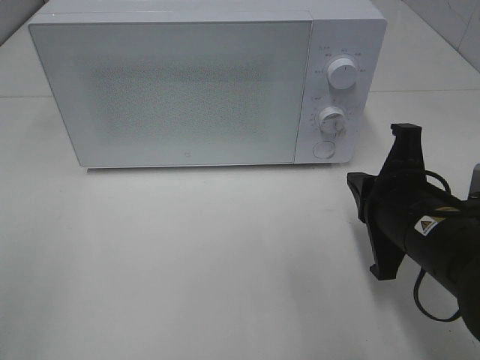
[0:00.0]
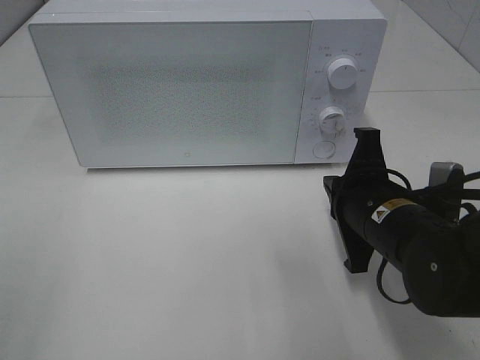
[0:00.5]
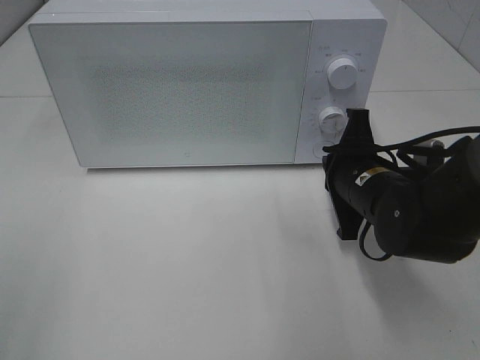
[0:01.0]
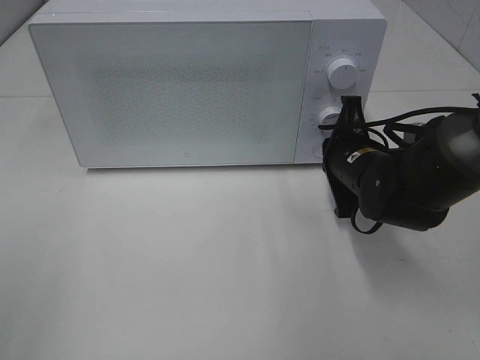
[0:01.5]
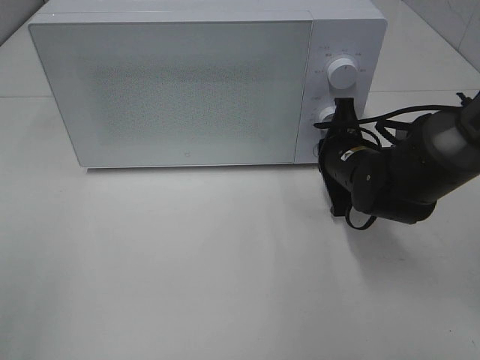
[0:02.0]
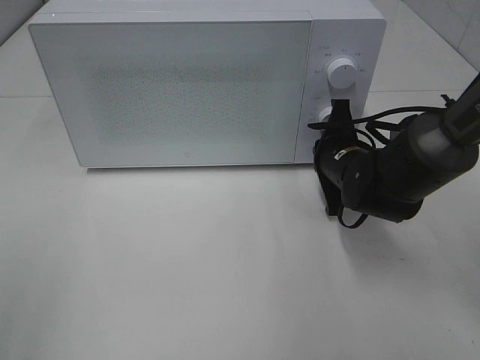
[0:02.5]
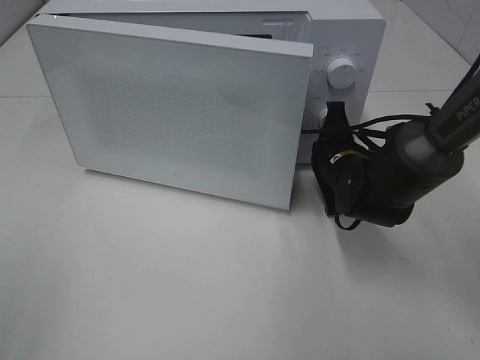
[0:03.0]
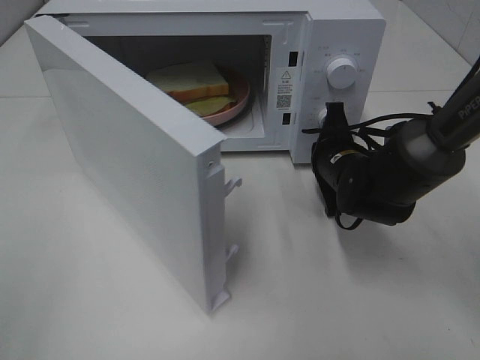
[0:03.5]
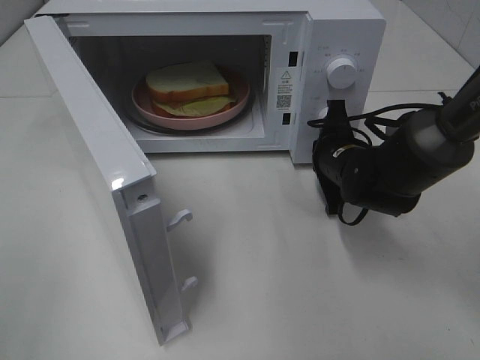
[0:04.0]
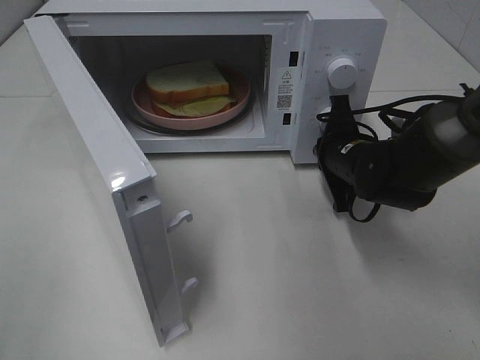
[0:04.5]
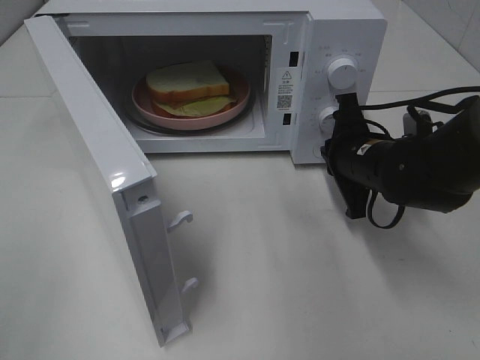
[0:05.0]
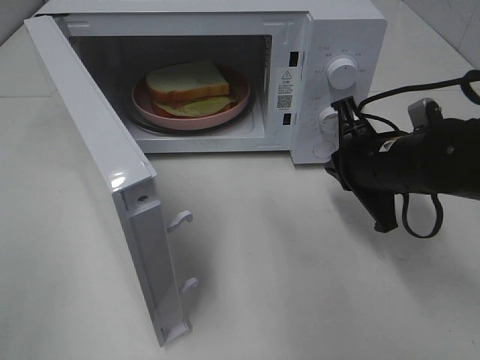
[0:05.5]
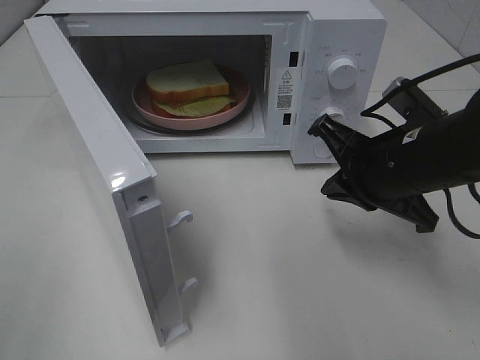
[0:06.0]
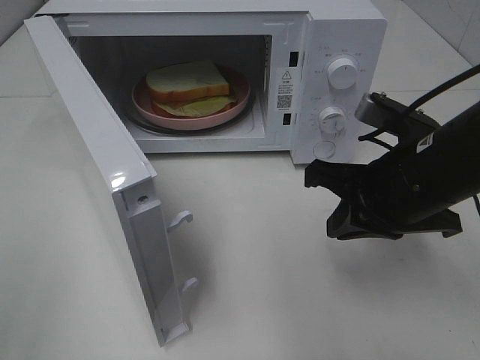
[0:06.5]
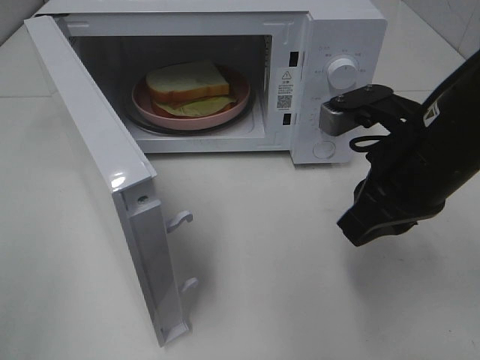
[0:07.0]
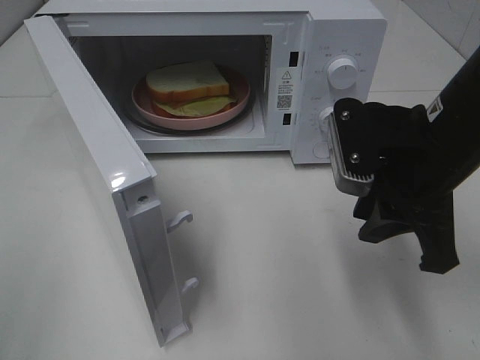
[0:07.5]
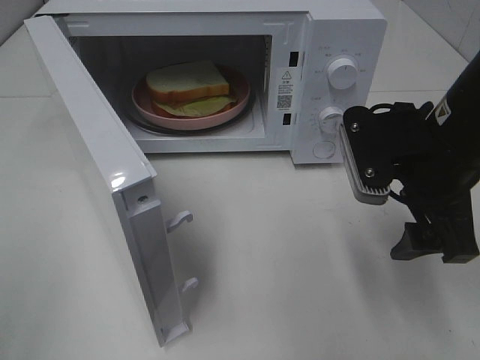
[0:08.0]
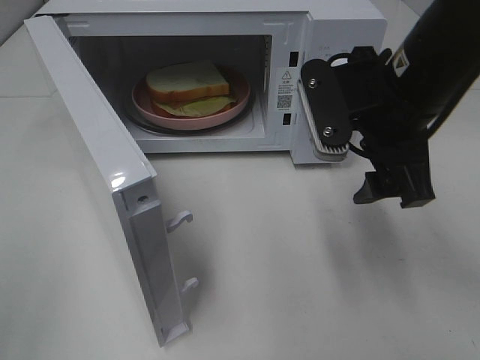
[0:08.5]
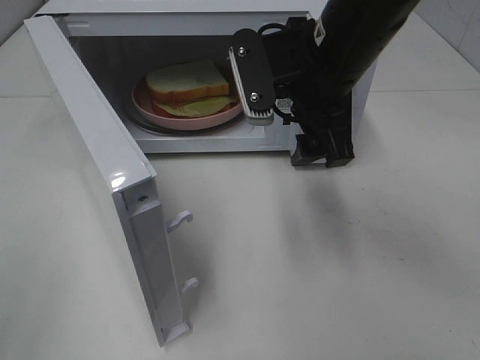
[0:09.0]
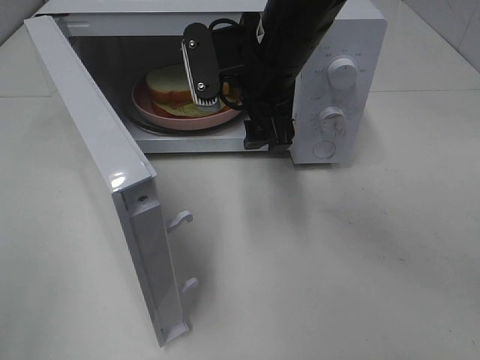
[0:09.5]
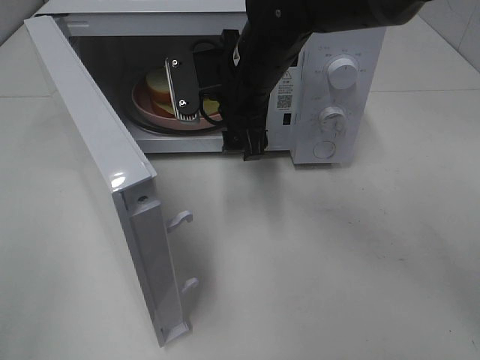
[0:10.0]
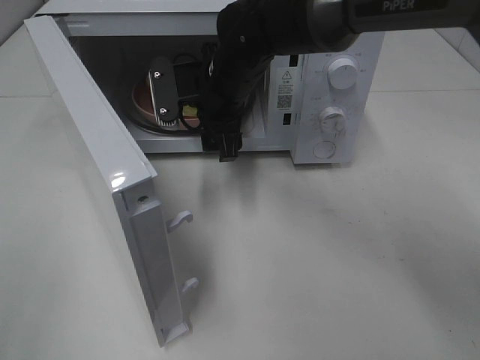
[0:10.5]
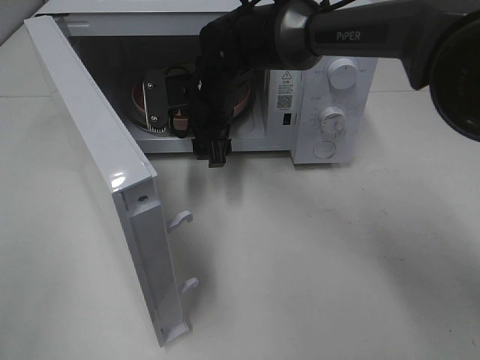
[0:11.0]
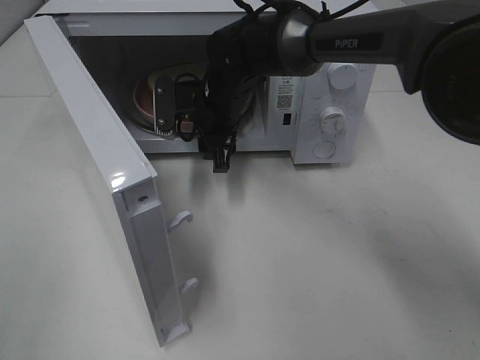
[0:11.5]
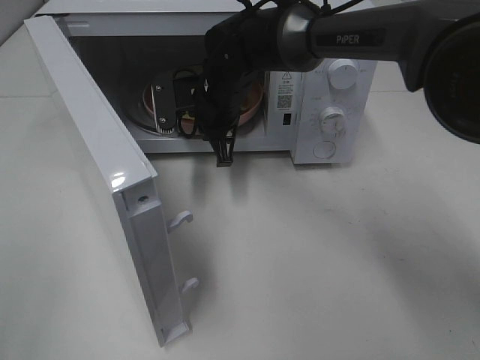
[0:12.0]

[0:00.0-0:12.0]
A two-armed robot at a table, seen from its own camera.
Task of the whole recording: Heat Sandwich.
Step, 0:00.0 to 0:05.0: Right hand: press the switch.
0:00.0 to 0:02.0: The right gripper is displaced forward by roughly 15 cm.
0:04.0 to 0:06.0: The right gripper travels backward and upward by roughly 15 cm.
0:06.0 to 0:08.0: The right gripper opens up.
0:08.0 to 0:10.0: The right gripper goes approximately 20 cm to the left and forward.
0:10.0 to 0:12.0: The right gripper moves downward and forward, approximately 10 cm, and closes its fingers.

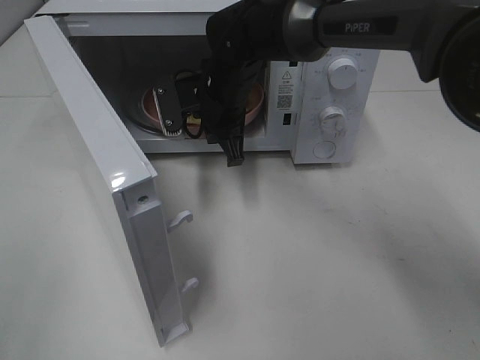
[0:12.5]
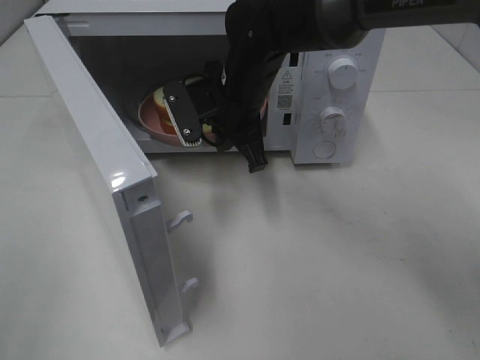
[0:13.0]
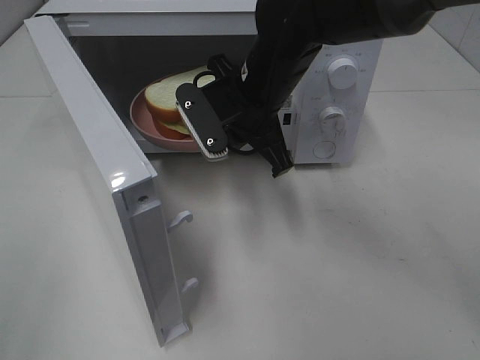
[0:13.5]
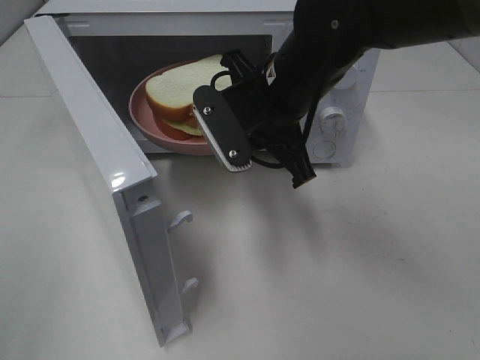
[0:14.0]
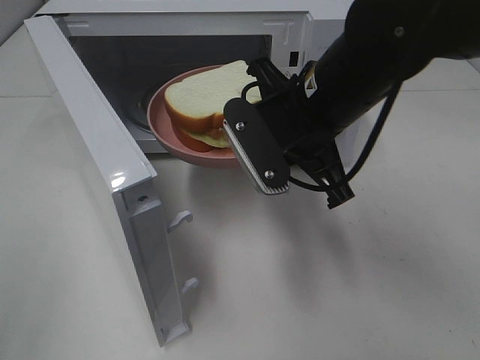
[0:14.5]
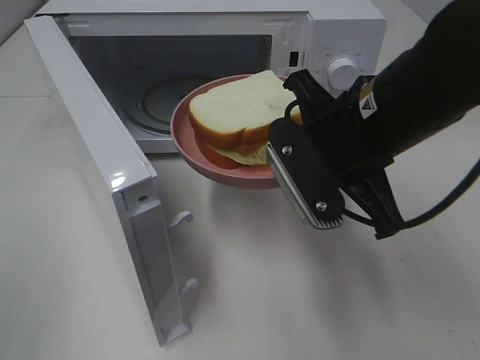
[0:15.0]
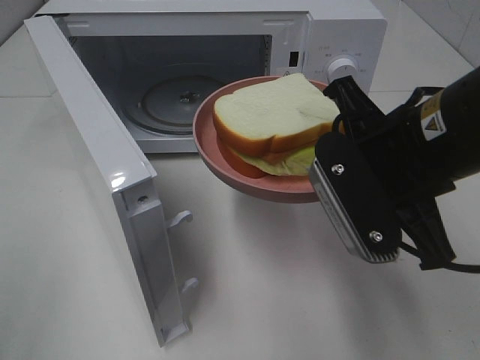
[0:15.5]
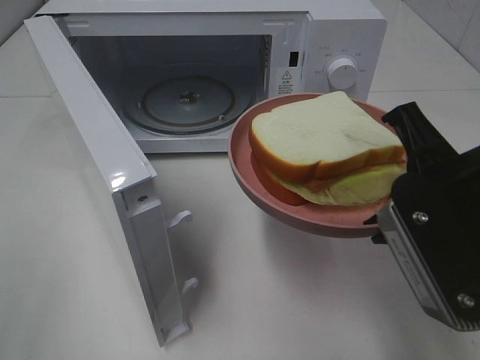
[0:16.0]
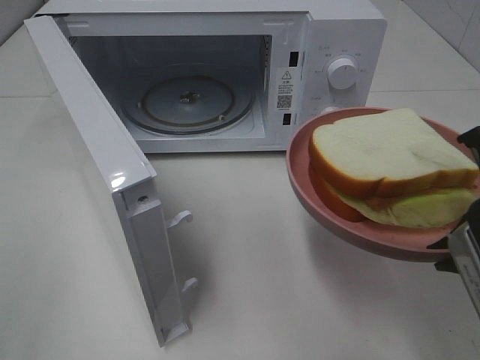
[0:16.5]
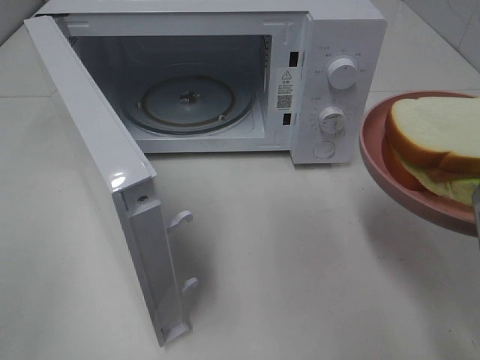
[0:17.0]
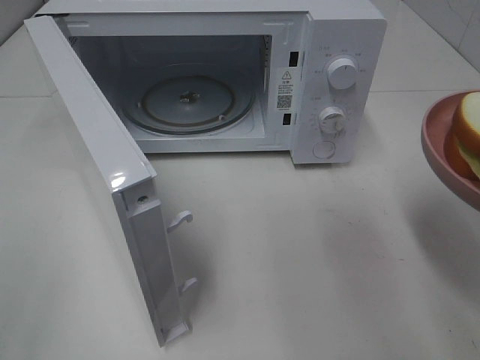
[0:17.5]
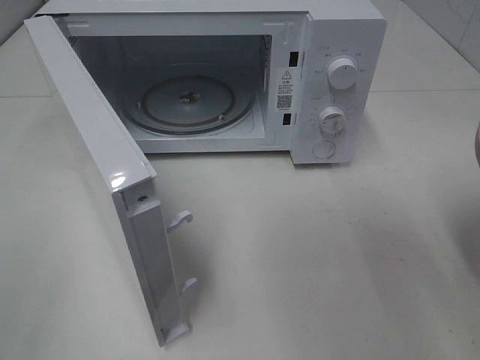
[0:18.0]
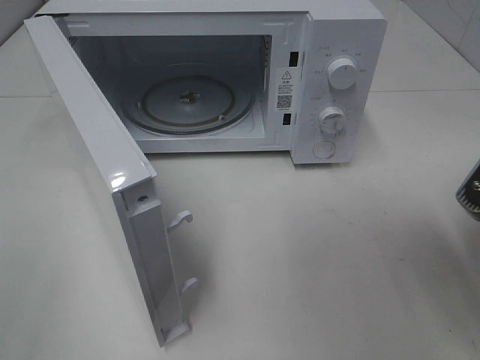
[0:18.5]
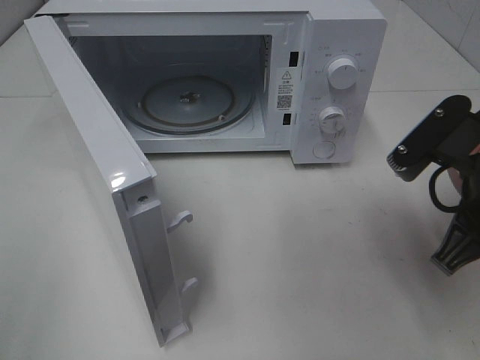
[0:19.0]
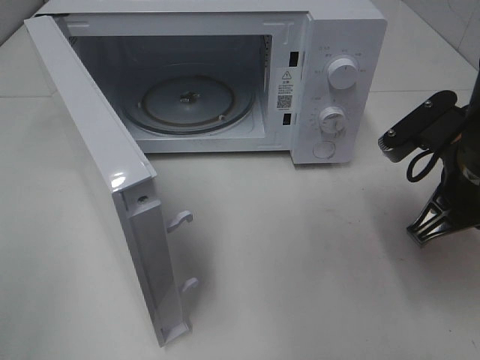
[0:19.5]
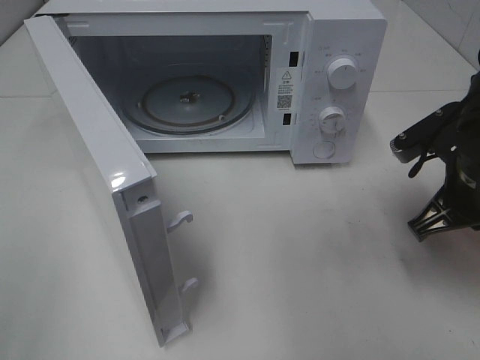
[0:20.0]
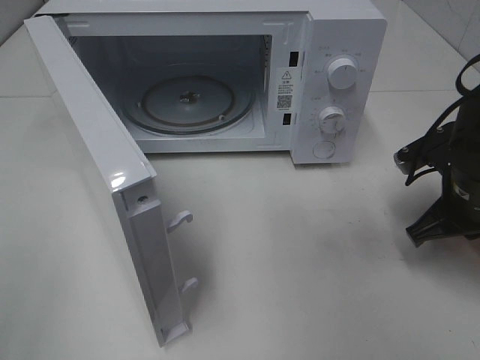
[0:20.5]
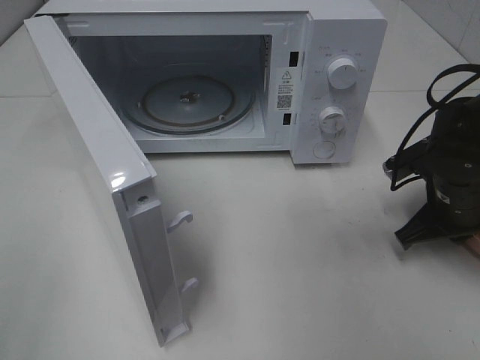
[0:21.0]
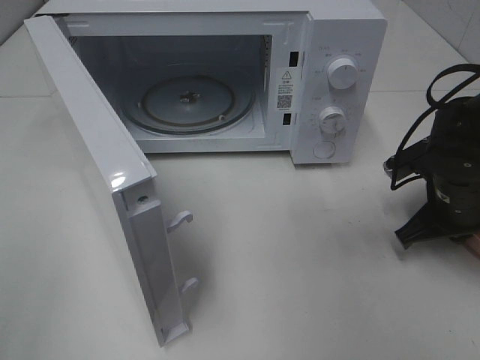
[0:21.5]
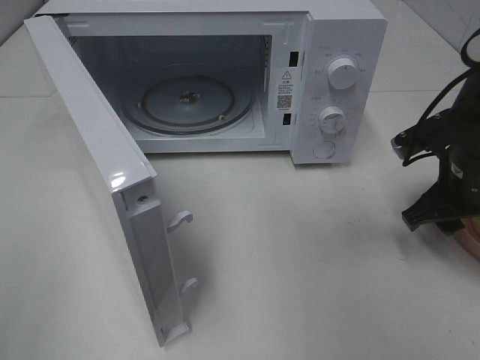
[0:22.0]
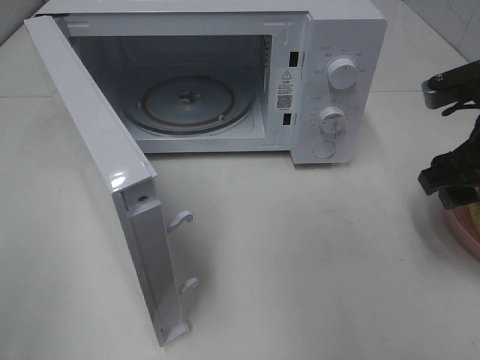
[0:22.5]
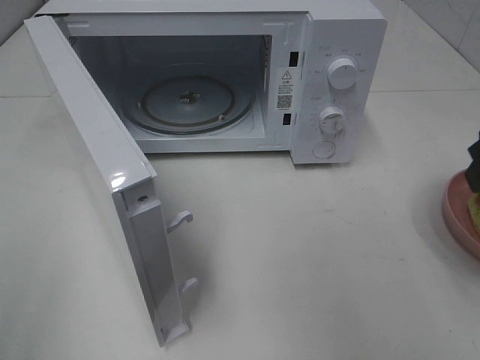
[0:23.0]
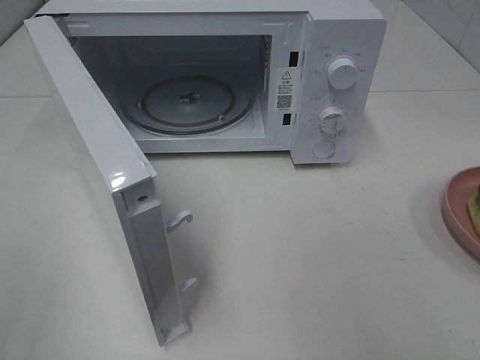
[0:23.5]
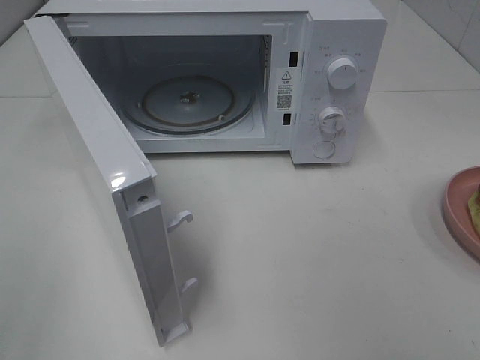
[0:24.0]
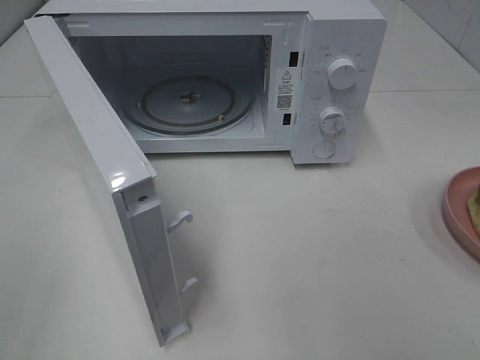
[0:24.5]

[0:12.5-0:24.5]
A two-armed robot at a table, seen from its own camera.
Task of the whole recording: Heat Sandwich.
Step, 0:12.5 to 0:22.5: Right hand: place the plate on the table.
0:12.5 to 0:14.5: The right gripper goes about 20 cm backward, to the right and upward.
0:14.5 to 0:16.5: The right gripper is displaced backward and to the right by approximately 20 cm.
0:18.5 to 0:20.5: The right gripper shifts about 15 cm forward and downward.
0:20.5 to 0:22.5: The right gripper moves upward, approximately 10 cm, and opens up.
0:22.5 to 0:24.5: The right gripper is displaced backward by roughly 25 cm.

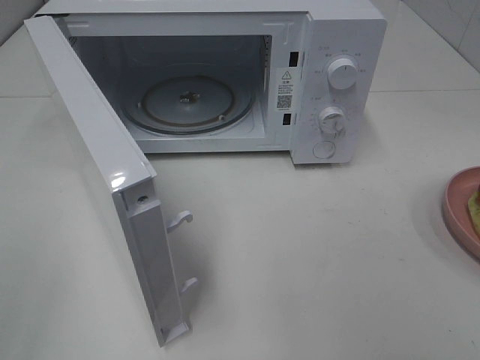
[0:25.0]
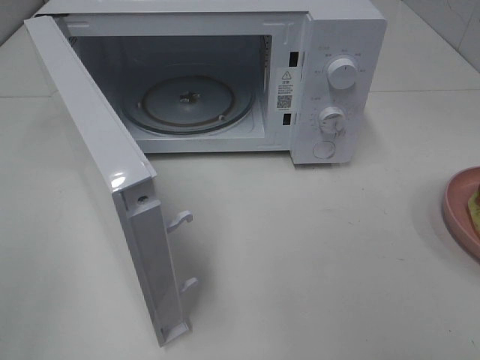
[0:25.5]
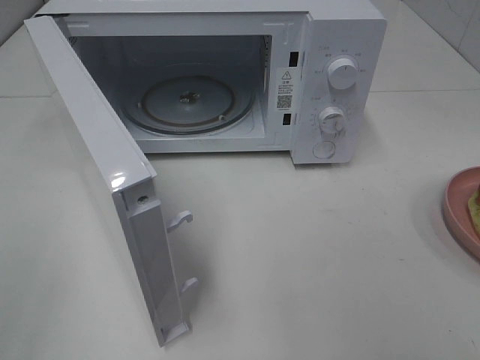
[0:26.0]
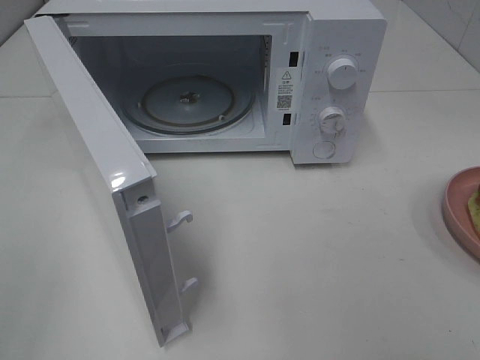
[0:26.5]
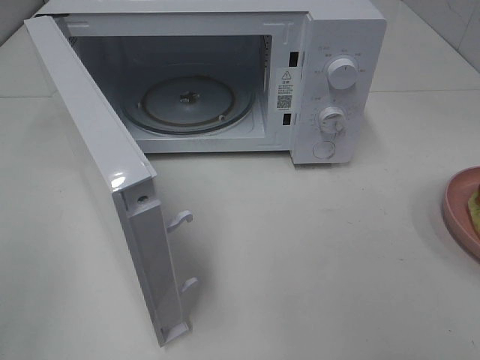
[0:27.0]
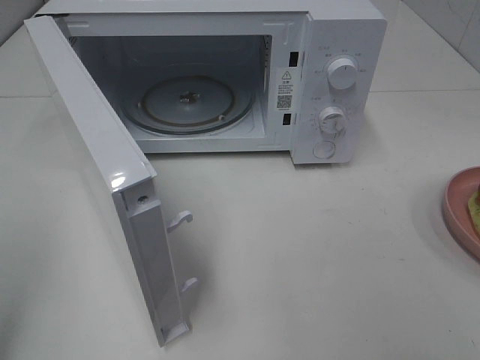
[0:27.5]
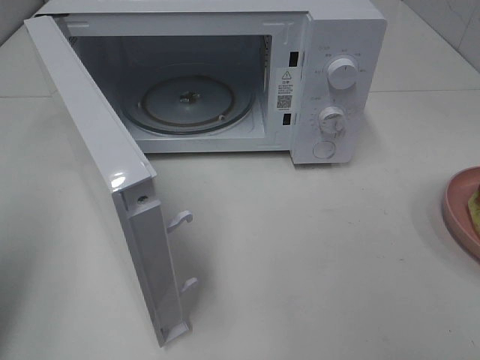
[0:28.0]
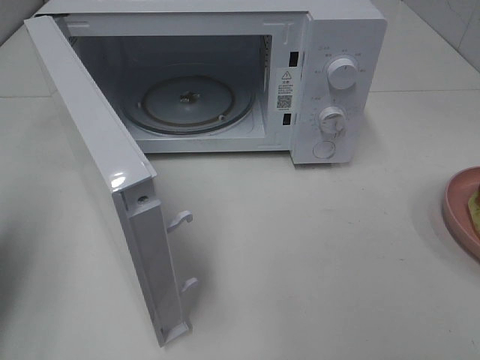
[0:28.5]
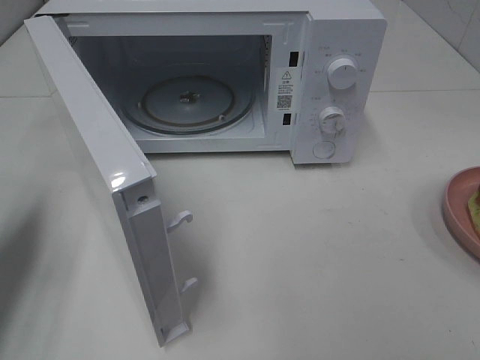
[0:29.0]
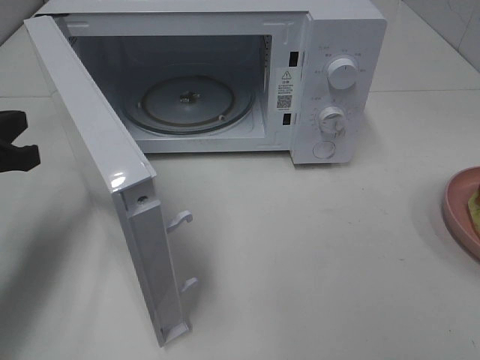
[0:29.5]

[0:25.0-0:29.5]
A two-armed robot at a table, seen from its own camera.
Task of the whole recording: Heat Sandwich.
0:25.0 to 0:27.0: Both grippers stay put.
0:27.0 to 0:29.5: The left gripper goes roughly 25 cm forward and downward, and closes.
